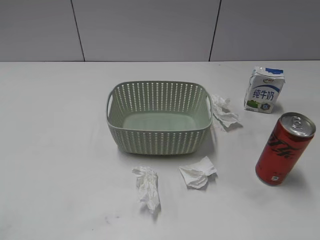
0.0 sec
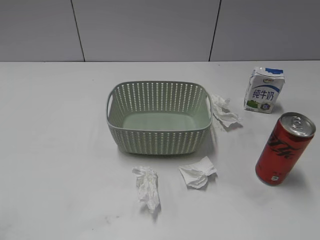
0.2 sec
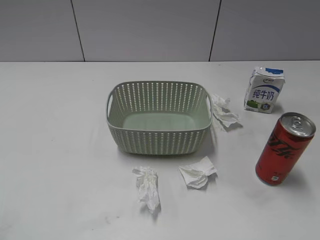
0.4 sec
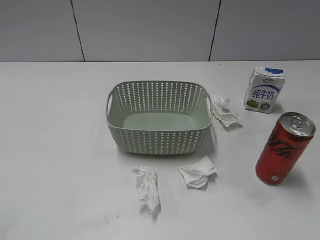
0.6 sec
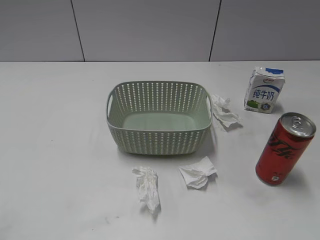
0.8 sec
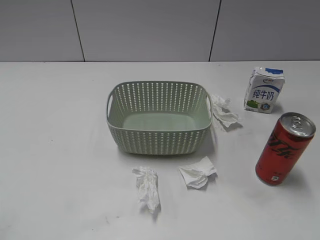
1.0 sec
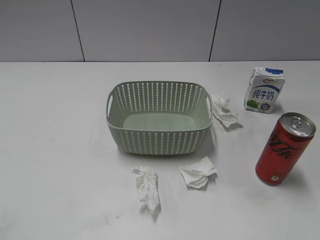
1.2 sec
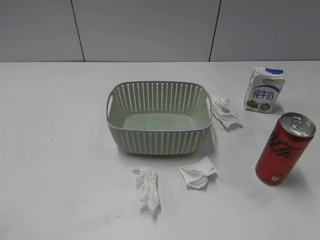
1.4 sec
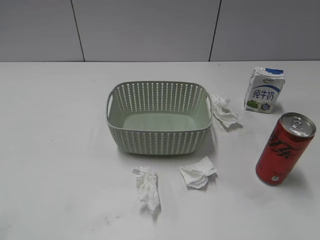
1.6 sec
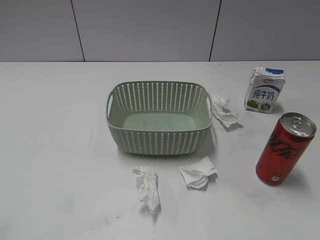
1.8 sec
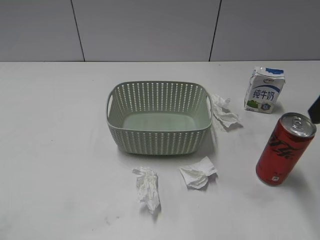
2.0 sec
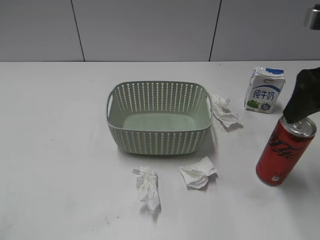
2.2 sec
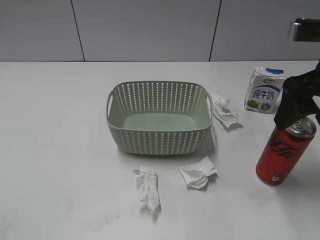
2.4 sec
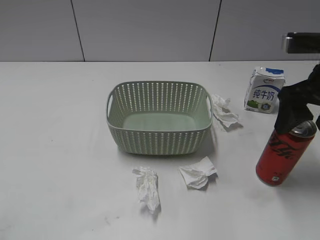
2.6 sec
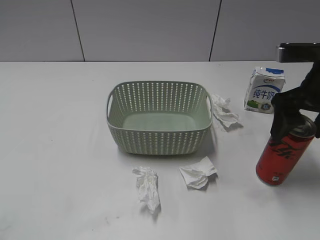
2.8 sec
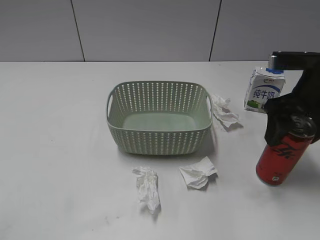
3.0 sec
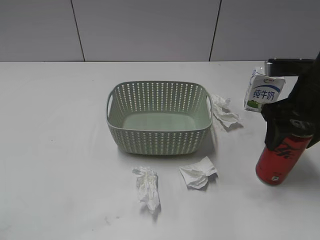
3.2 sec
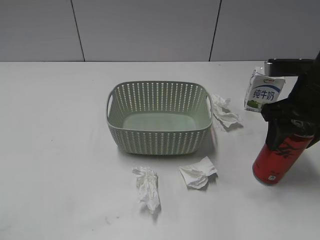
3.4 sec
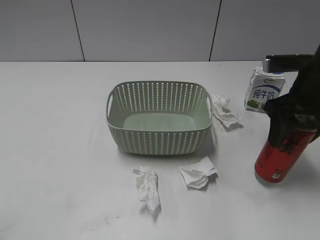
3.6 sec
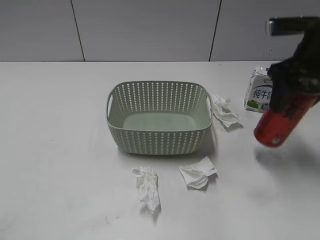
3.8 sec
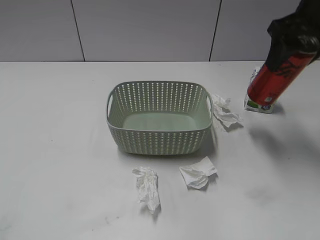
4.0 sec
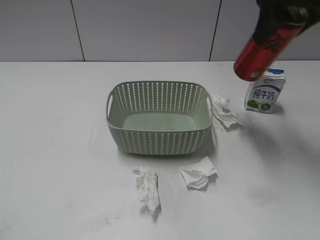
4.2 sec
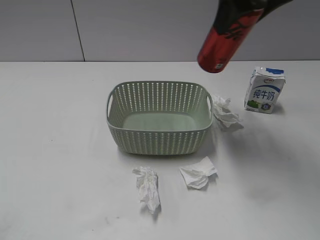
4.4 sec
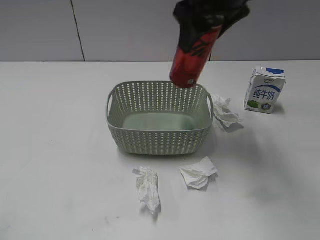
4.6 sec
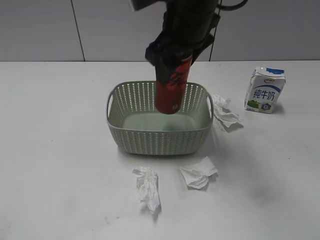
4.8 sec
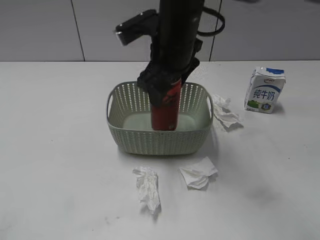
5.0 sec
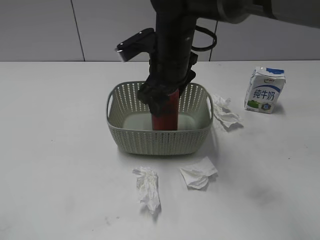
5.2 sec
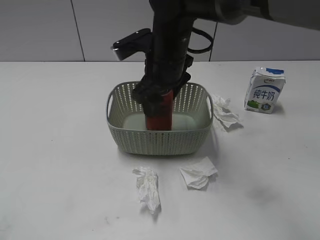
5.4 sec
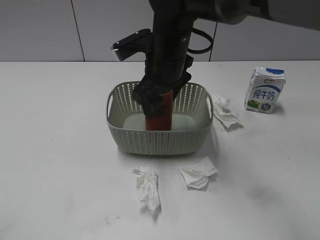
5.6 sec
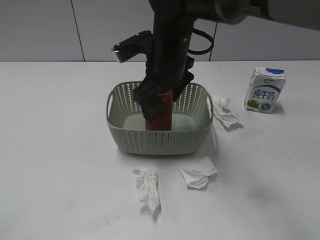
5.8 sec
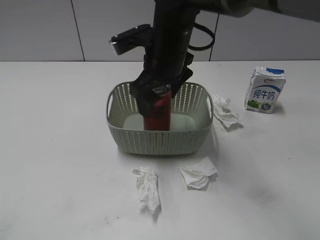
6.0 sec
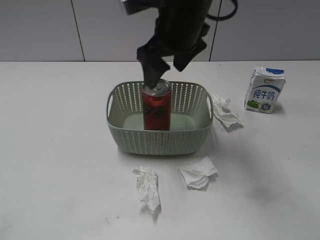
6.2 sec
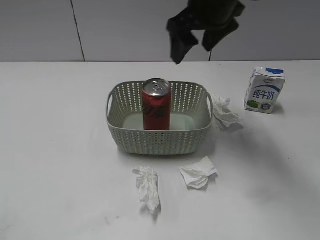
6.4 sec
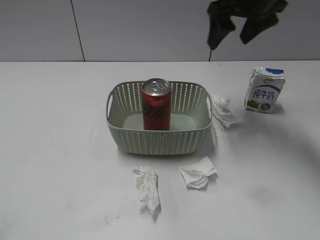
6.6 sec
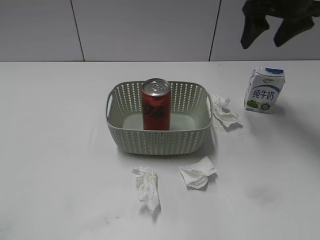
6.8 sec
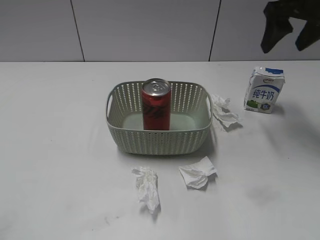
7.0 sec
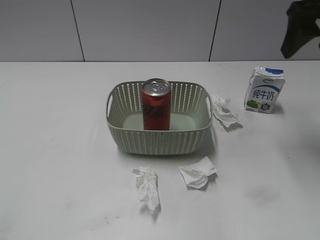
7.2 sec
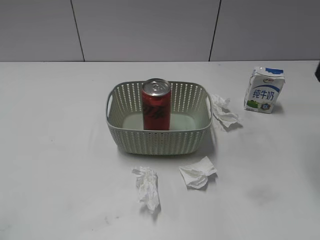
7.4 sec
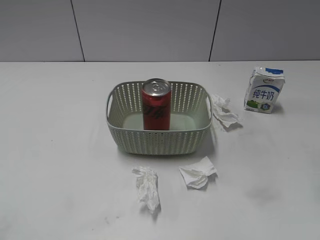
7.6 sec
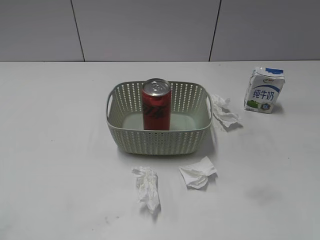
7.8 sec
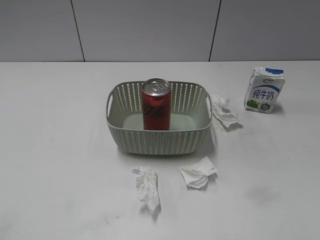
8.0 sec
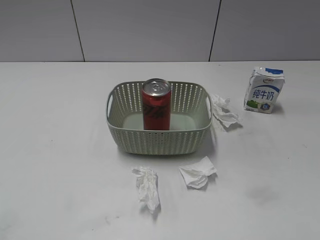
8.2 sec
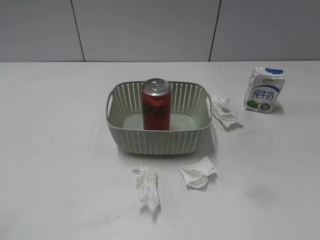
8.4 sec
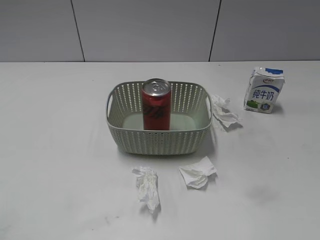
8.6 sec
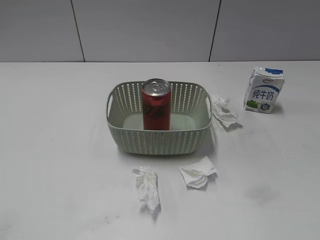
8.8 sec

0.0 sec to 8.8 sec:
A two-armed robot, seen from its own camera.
Step, 2.0 sec to 3.4 sec: Grasp the cola can with right gripper.
Step, 3.6 sec to 6.2 sec: Place the cola can in the basket with right gripper.
1.4 sec to 3.0 sec: The right gripper goes approximately 25 cm forward and downward.
3.0 sec to 4.4 sec: The right gripper travels upward and to the left by approximately 15 cm, and closes.
4.4 sec to 5.8 sec: The right gripper travels downward and to the left by approximately 20 cm, and opens its fingers.
5.8 sec to 7.4 sec: The right gripper heads to the right and upward, covering about 30 cm, and closes up.

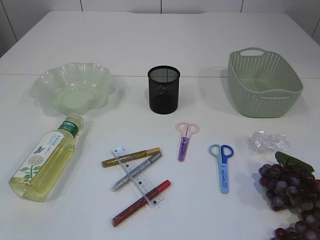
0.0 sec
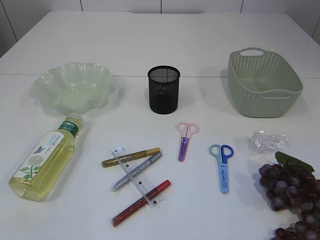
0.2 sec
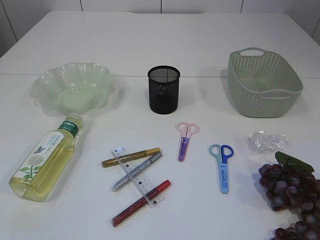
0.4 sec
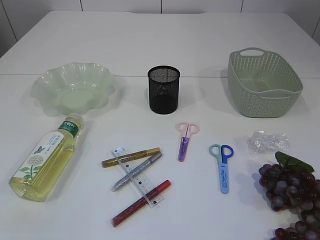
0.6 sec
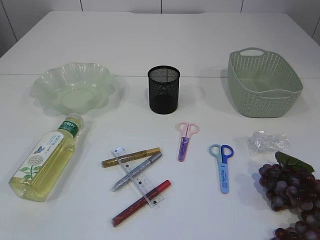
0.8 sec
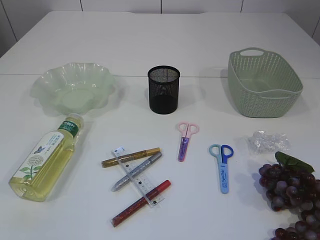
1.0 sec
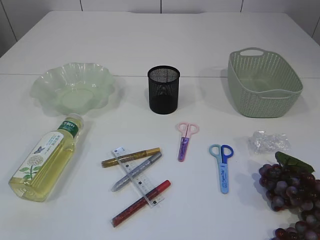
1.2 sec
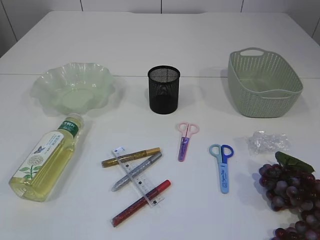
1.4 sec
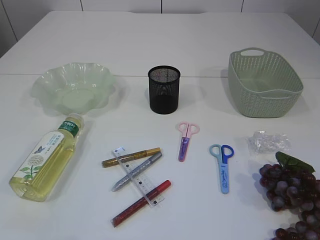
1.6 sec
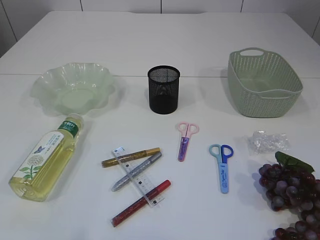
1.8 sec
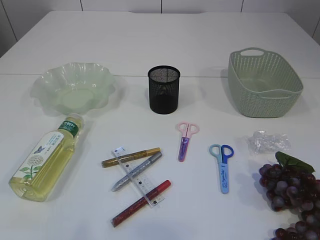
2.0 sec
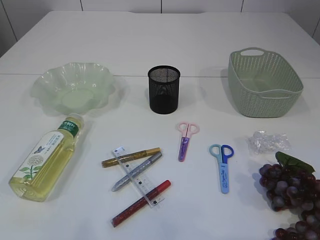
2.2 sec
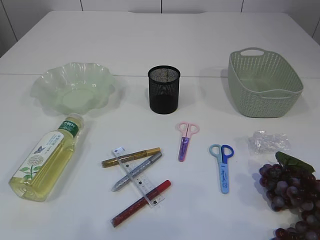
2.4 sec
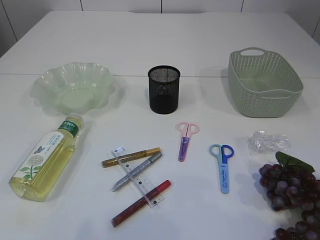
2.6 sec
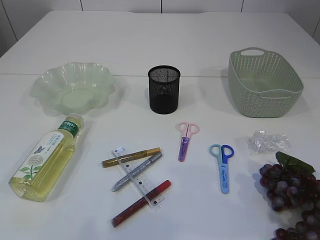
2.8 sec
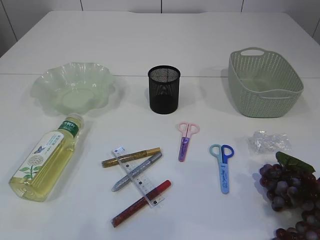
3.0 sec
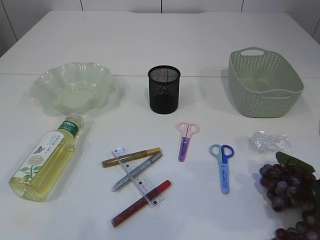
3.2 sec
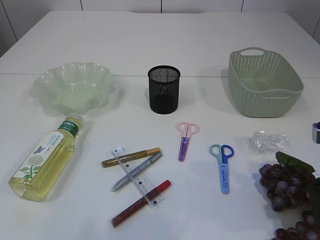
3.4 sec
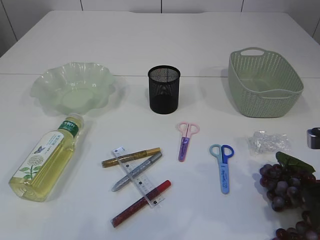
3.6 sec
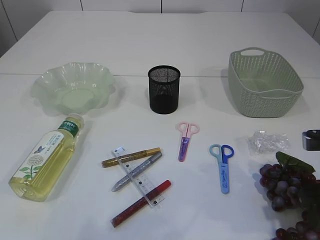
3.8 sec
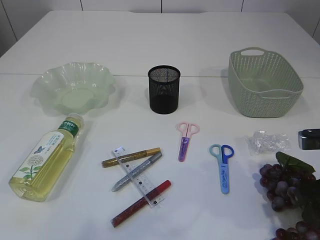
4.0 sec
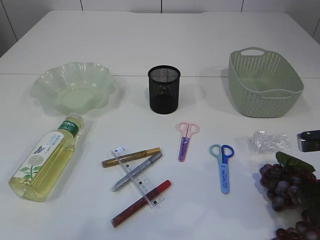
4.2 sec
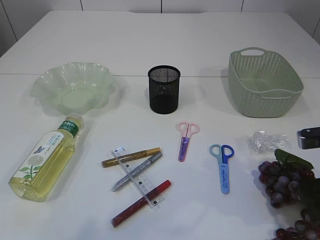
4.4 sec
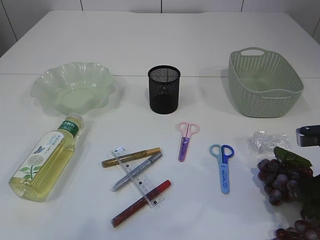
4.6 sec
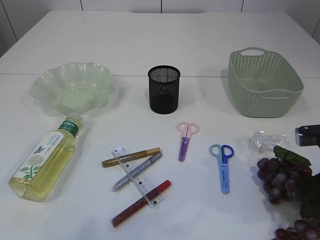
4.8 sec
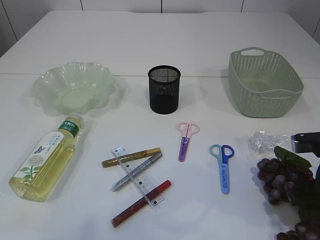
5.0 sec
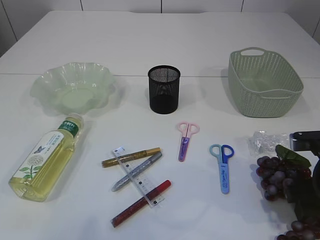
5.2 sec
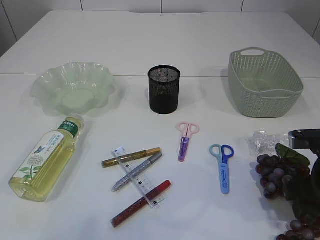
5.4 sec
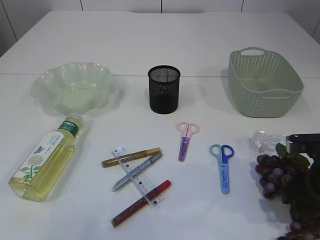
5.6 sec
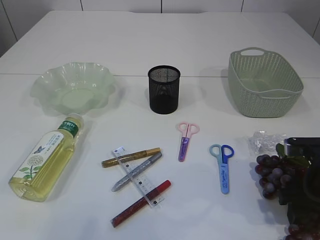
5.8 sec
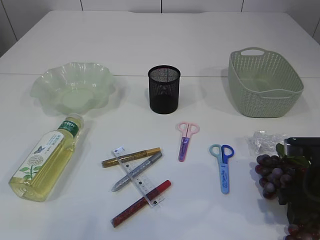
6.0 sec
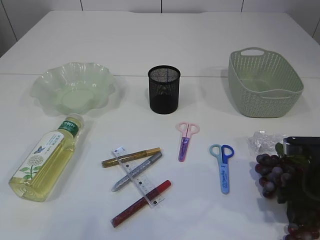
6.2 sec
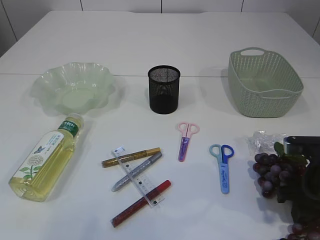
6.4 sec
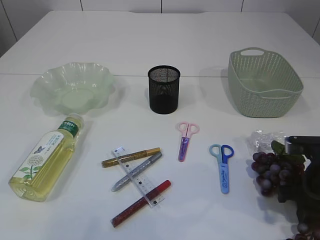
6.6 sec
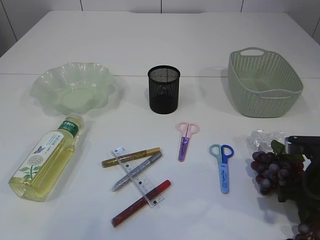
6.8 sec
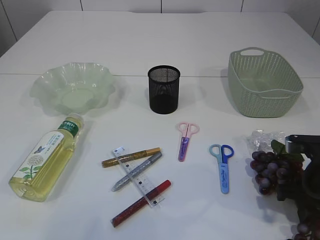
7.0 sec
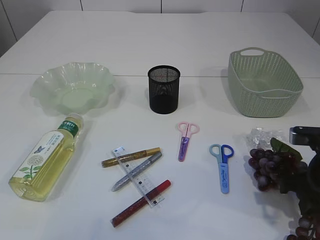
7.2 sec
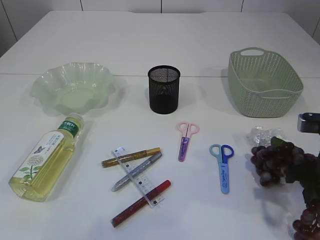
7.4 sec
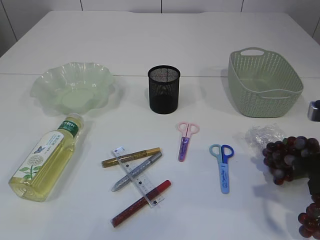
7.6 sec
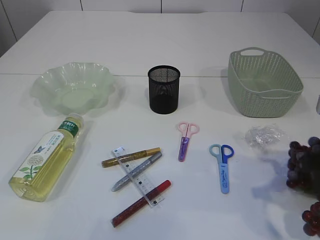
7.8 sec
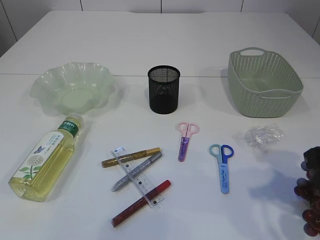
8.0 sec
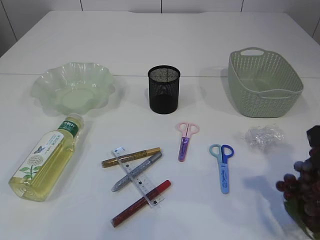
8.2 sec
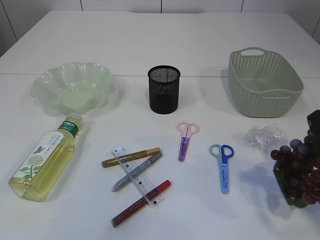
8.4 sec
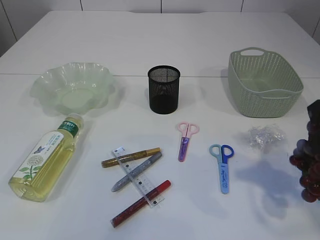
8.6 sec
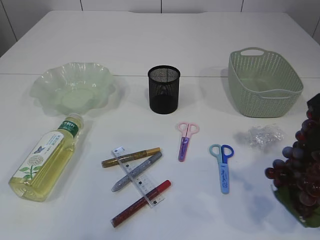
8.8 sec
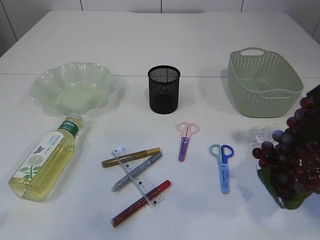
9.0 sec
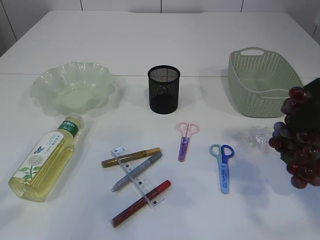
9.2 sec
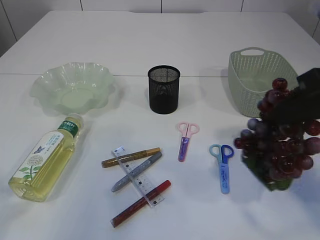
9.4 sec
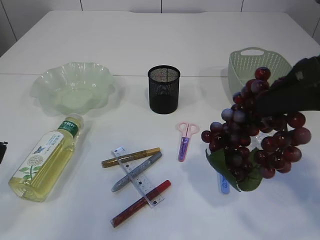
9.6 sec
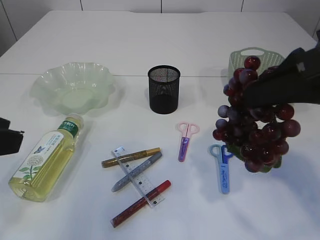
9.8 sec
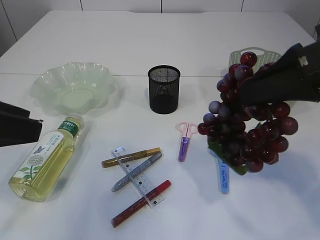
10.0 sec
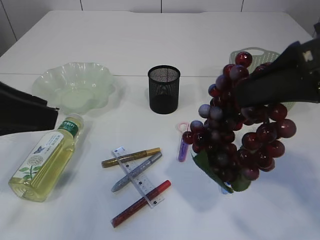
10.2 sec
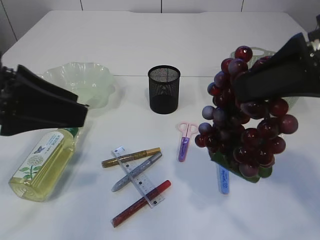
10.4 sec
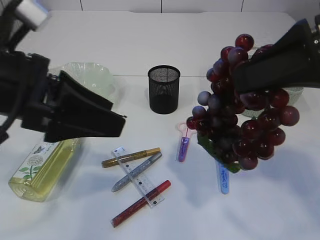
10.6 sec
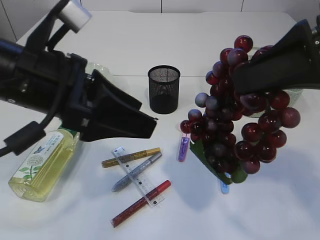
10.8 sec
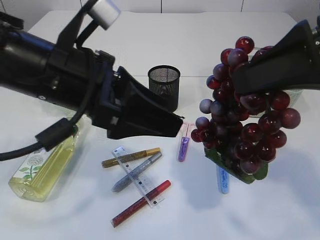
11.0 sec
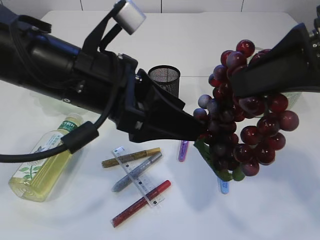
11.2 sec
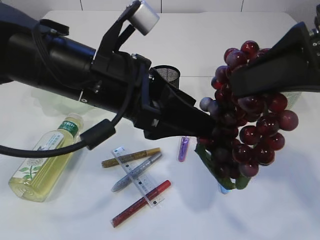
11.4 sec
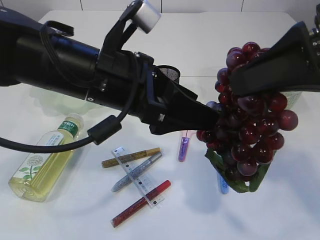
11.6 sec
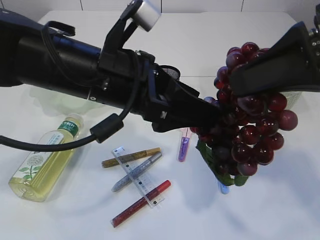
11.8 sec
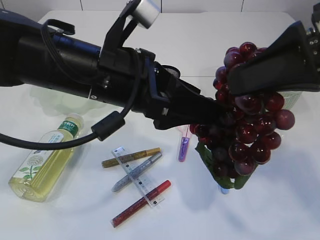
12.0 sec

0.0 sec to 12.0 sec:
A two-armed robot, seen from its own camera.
Step, 0.0 sec to 10.0 sec: Pick up the grapes.
1.6 sec to 3.0 sec: The right gripper goes about 20 cm forward.
3.0 sec to 4.4 sec: The right gripper heads downward, covering roughly 5 cm.
4.4 sec to 6.0 sec: The grippers move only a little.
6.0 sec to 7.6 sec: The right gripper heads upward, covering roughly 5 cm, and closes up.
7.6 sec to 9.0 sec: The right gripper is displaced upward by approximately 10 cm.
9.0 sec to 10.4 sec: The left gripper is displaced forward and to the right by approximately 15 cm, while the right gripper shifts by some 5 cm.
10.4 sec to 12.0 sec: The left gripper shifts roughly 15 cm to the right.

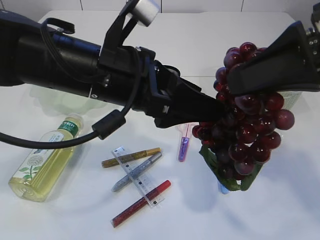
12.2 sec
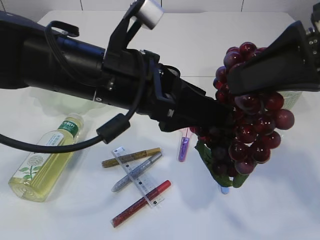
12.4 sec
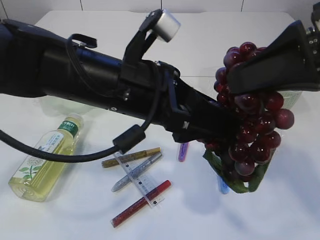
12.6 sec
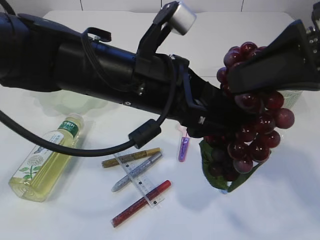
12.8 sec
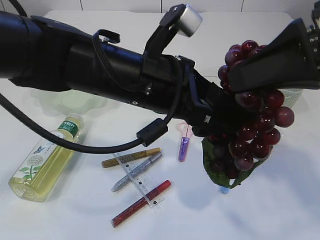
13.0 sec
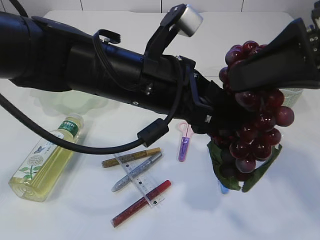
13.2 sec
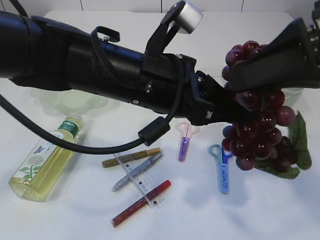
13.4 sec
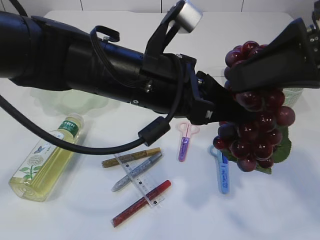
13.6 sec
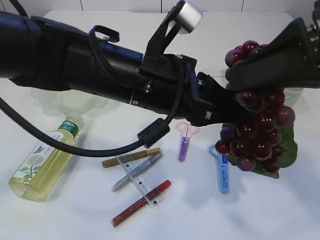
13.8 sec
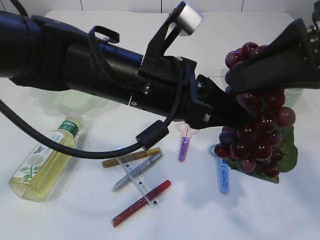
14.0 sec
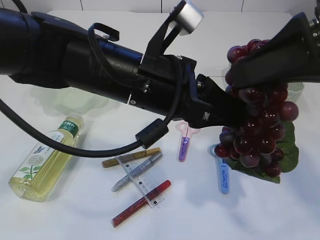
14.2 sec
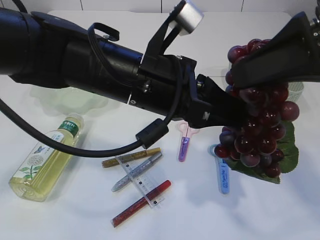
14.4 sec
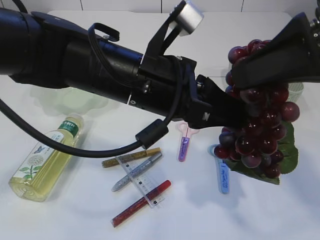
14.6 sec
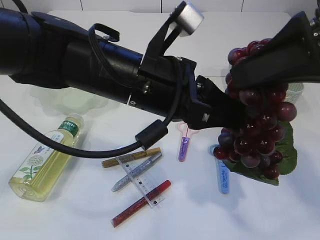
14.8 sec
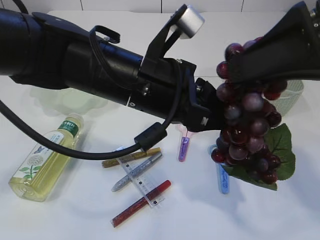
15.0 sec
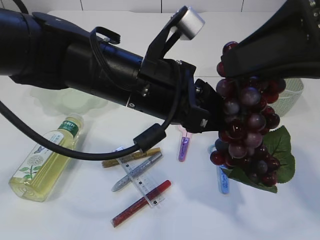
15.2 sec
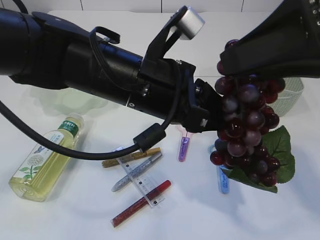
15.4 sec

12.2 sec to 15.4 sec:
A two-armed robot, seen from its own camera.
12.2 sec to 13.8 sec: The left gripper closes up.
13.8 sec to 15.4 sec: The right gripper opens its fingers.
